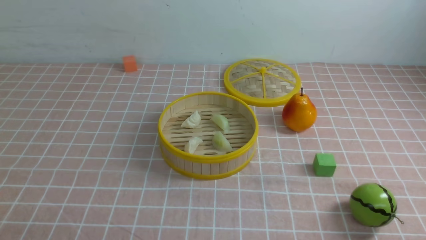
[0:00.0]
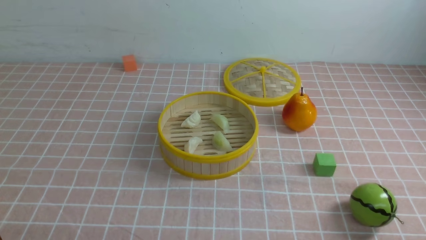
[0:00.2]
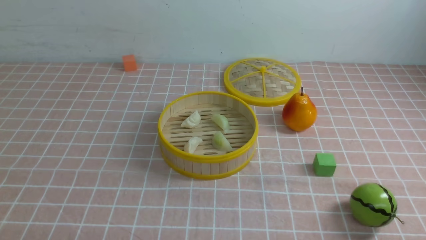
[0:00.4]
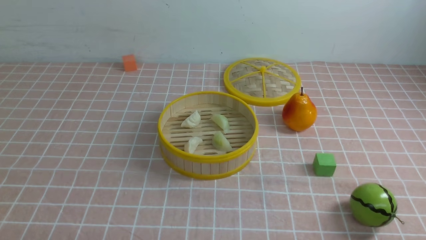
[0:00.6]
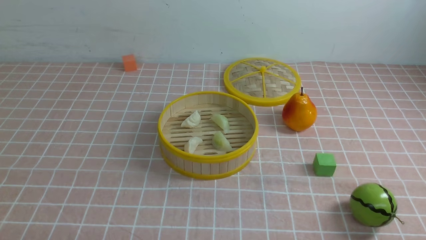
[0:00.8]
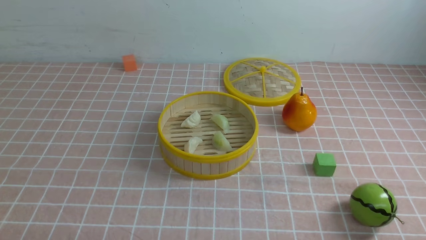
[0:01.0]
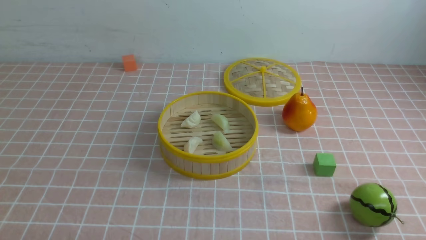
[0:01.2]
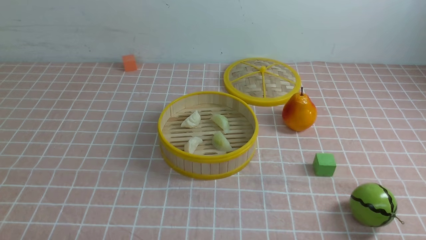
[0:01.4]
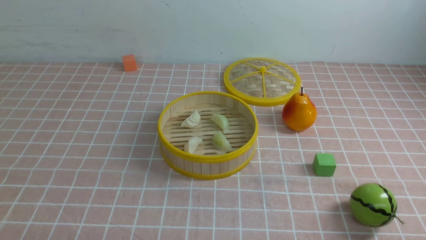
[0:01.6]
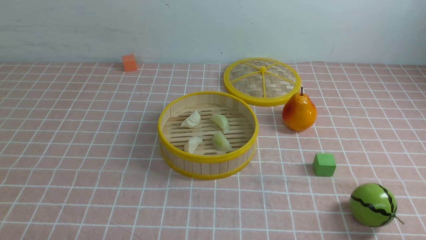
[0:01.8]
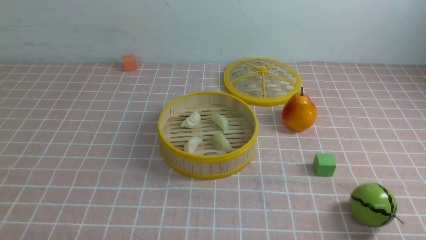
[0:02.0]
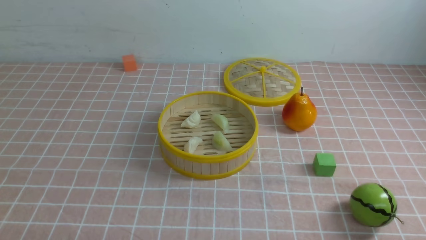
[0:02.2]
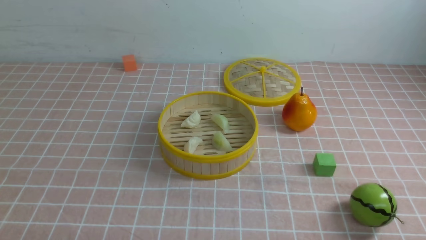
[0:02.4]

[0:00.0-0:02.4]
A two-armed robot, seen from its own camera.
Task of the whole recording: put the dumplings into the steamer on the table with the pink tablecloth.
0:01.2 to 0:02.4: Both grippers stay about where they are.
